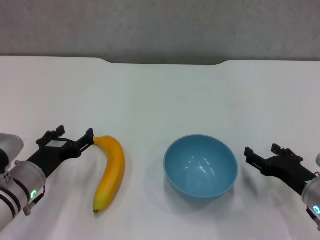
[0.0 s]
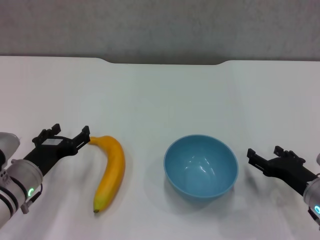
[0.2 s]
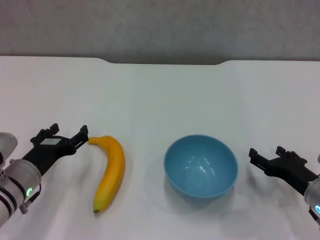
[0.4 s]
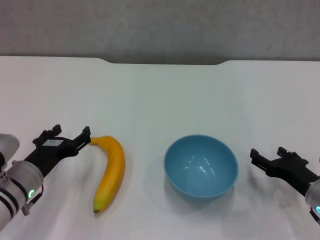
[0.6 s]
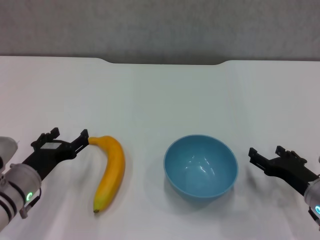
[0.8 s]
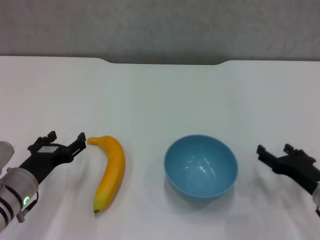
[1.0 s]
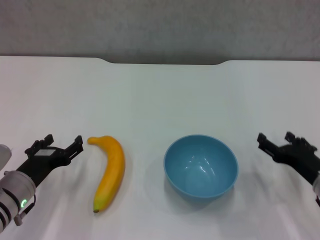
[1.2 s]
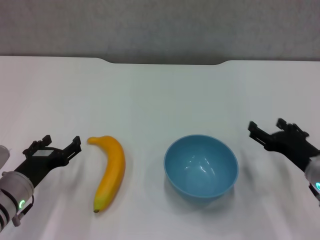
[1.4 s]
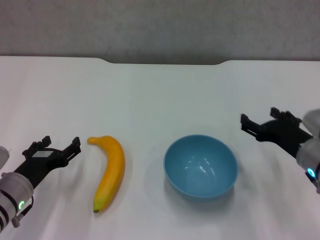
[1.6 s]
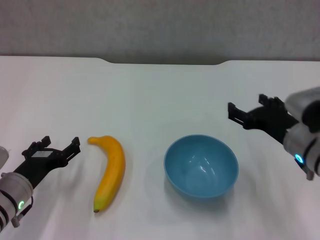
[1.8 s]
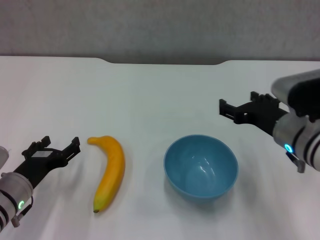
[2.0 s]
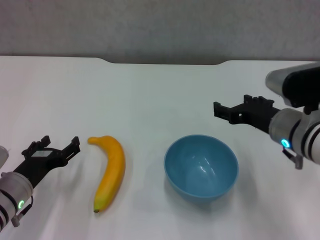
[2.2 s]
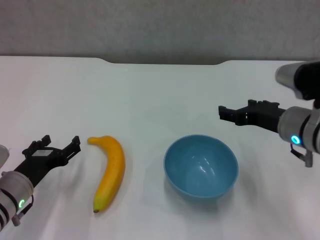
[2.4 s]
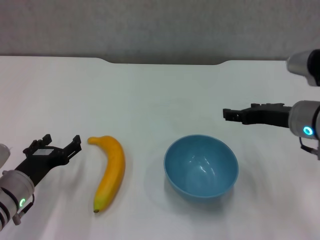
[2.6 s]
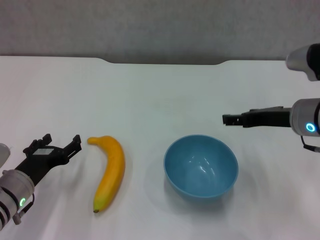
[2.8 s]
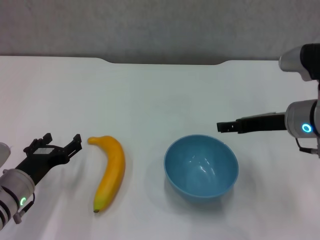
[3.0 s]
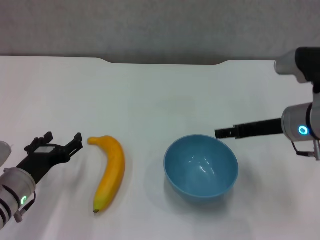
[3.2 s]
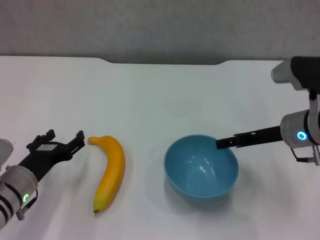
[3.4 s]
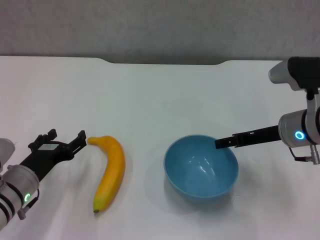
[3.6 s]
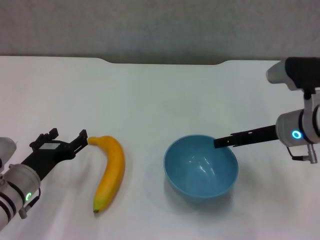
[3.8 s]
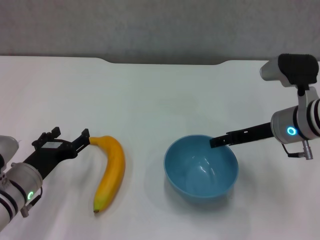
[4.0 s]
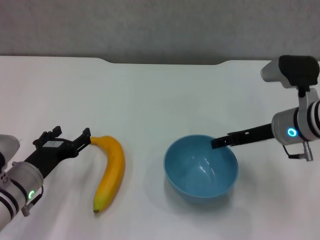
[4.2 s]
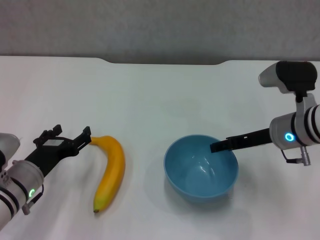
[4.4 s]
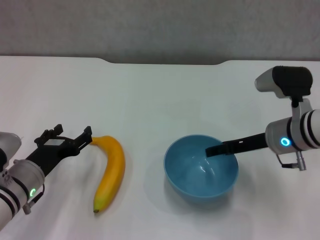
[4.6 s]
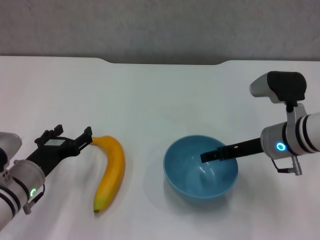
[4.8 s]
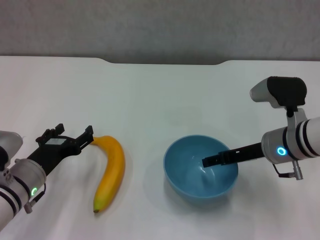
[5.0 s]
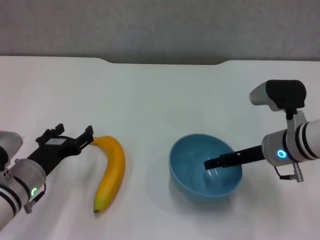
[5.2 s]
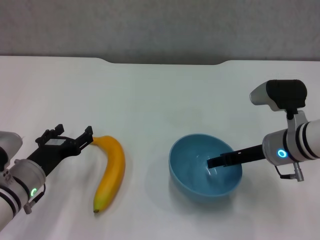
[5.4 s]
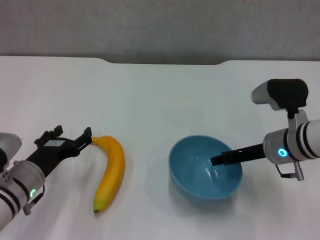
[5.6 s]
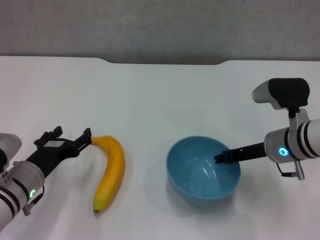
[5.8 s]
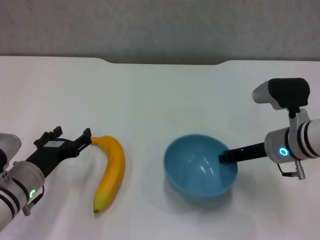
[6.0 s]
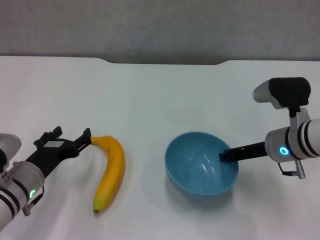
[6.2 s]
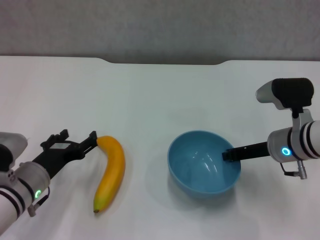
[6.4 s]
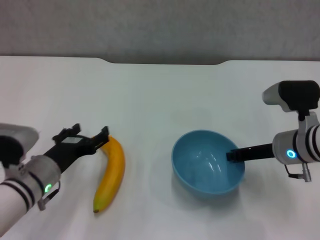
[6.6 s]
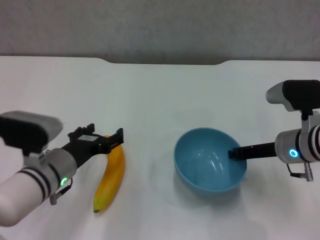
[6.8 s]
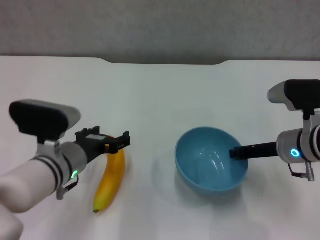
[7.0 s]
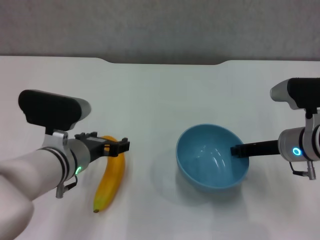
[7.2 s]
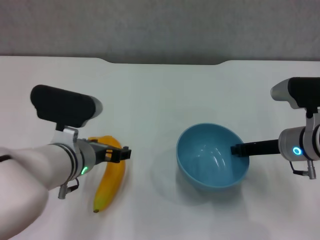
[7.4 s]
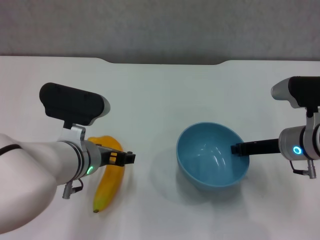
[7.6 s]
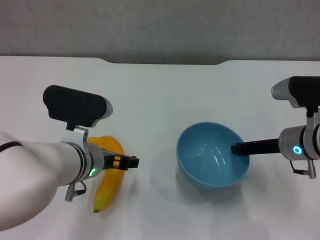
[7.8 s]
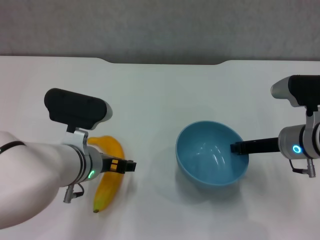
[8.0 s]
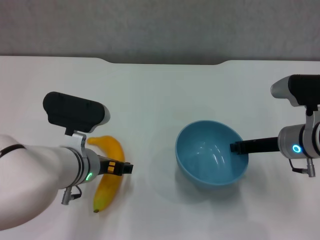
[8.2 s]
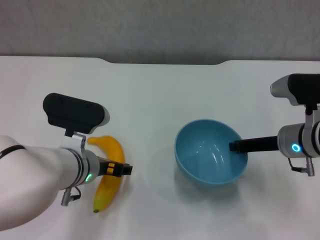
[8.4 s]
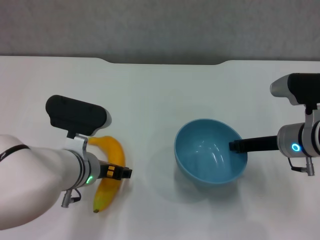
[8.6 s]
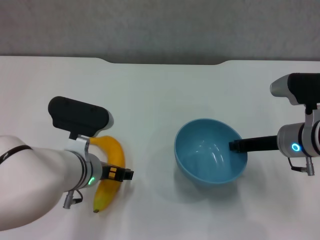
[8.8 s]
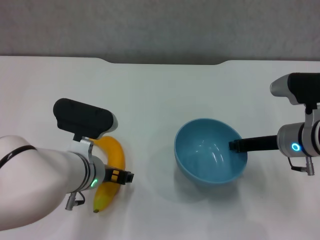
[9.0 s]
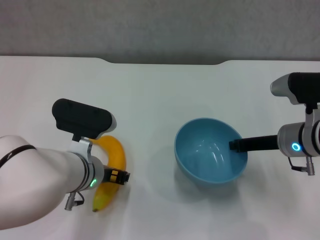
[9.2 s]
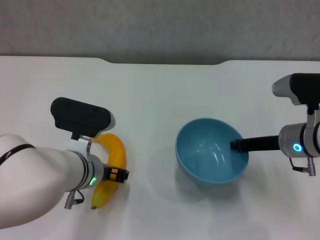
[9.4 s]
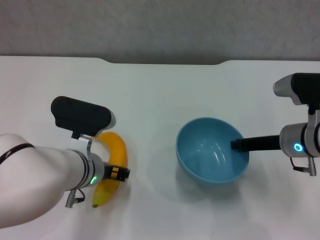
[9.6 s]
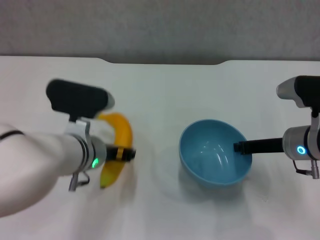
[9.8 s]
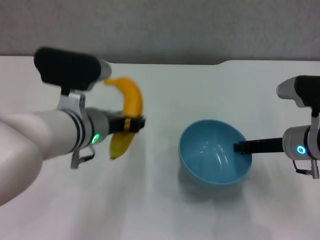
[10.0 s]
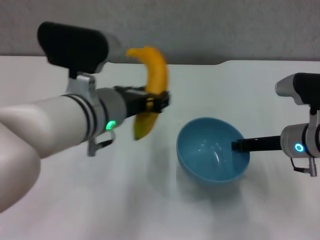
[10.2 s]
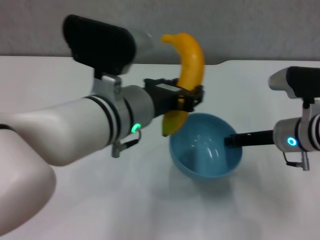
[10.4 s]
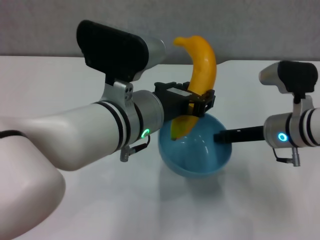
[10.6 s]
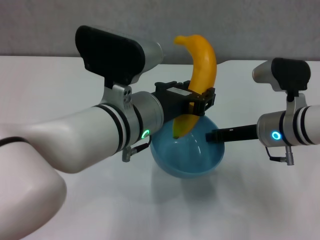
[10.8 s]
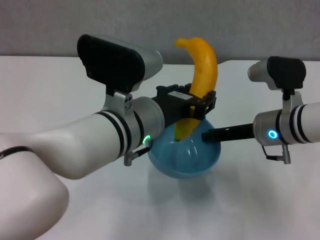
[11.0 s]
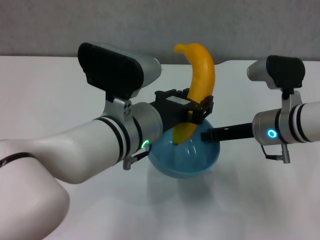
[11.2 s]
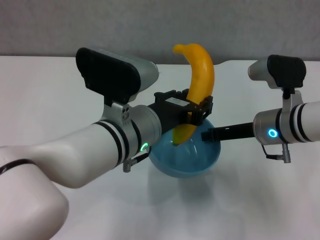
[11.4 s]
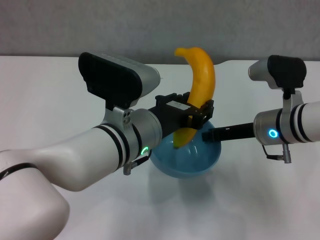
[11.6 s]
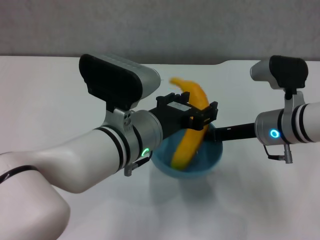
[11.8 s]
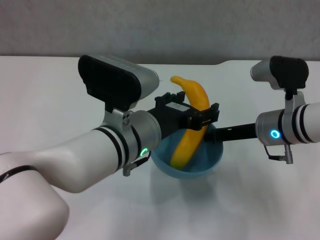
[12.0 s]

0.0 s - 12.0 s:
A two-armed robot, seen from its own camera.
Step, 0.0 s - 6.0 s: Grasp the blue bowl with right gripper.
Step, 6.2 s - 7.0 s: Lift the blue bowl with right gripper.
Step, 7.2 s - 9.2 s: Grasp the banana with left gripper.
Step, 9.4 s - 12.0 s: Place the banana in the blue bowl with left gripper.
0.0 s - 1.6 s: The right gripper goes approximately 5 cm upward.
1.6 s - 3.0 s: The right gripper heads upward and forward, covering roughly 10 cm.
3.0 s - 4.4 s: There are only small adjustments of the grippers.
4.4 s - 6.0 s: The right gripper closes up.
6.0 s - 7.6 s: The left gripper goes roughly 15 cm to the right and upward.
7.6 s - 9.0 s: The grippers move only a little.
9.0 s - 10.4 s: The left gripper travels upward and to the right by some 15 cm, and closes its fingers.
10.4 s - 12.0 s: The left gripper shifts by about 5 cm, and opens.

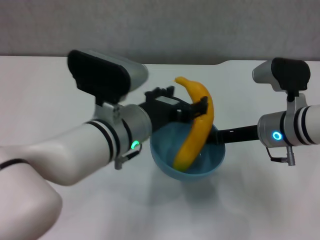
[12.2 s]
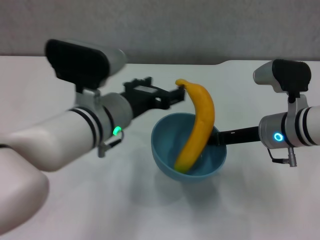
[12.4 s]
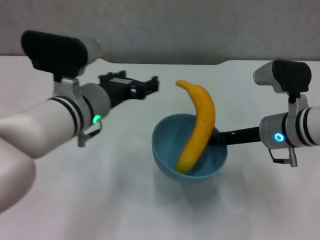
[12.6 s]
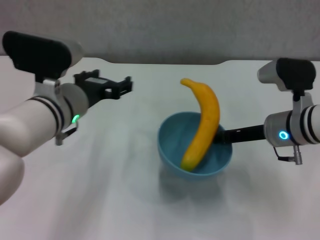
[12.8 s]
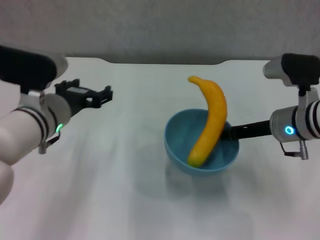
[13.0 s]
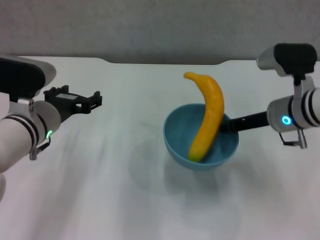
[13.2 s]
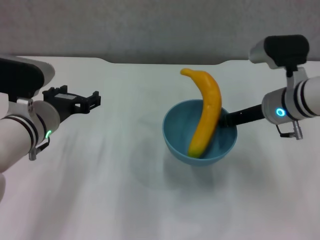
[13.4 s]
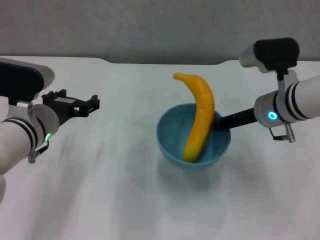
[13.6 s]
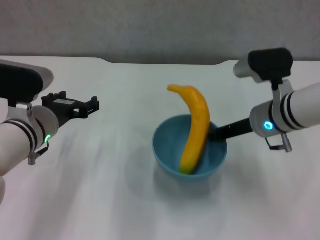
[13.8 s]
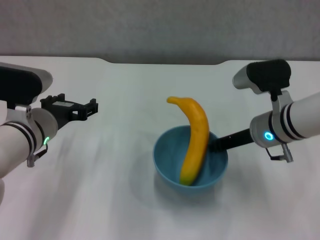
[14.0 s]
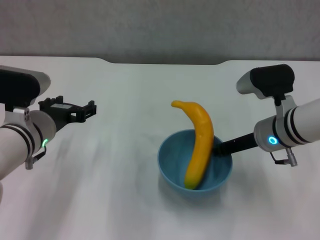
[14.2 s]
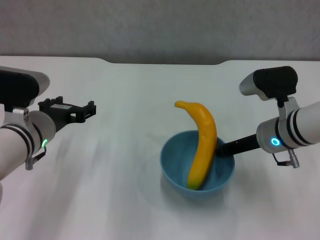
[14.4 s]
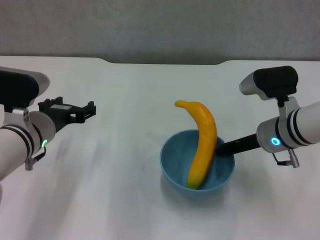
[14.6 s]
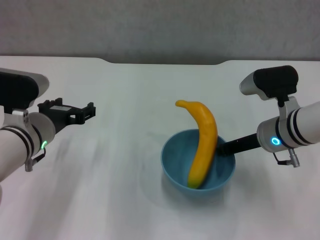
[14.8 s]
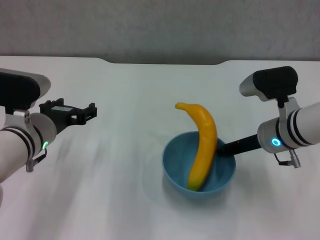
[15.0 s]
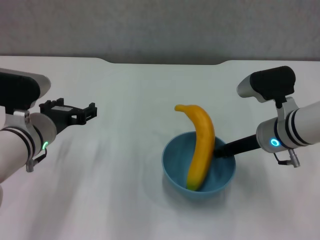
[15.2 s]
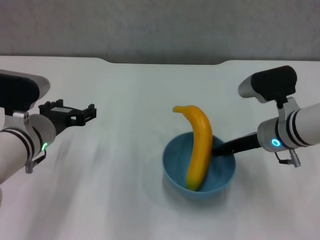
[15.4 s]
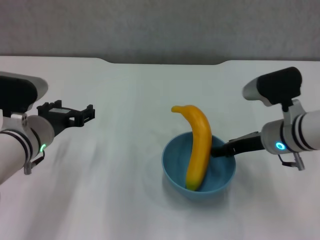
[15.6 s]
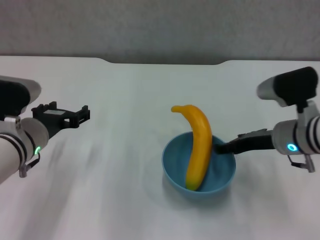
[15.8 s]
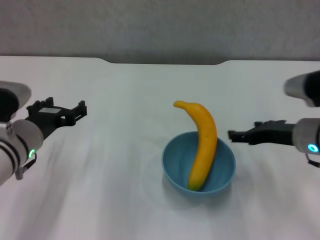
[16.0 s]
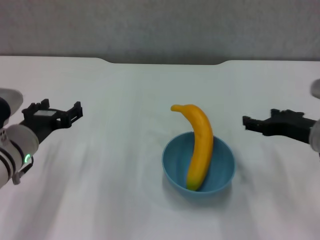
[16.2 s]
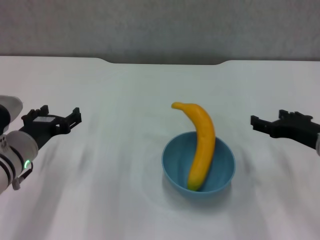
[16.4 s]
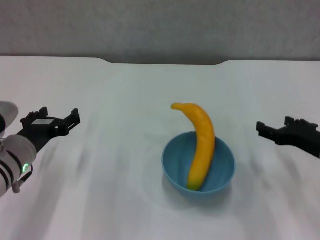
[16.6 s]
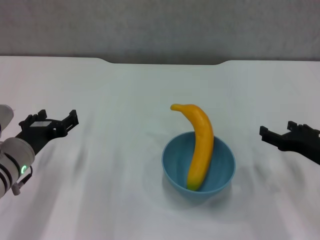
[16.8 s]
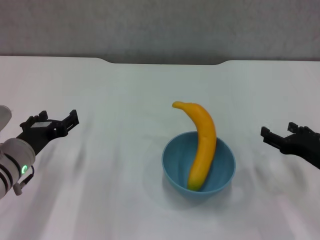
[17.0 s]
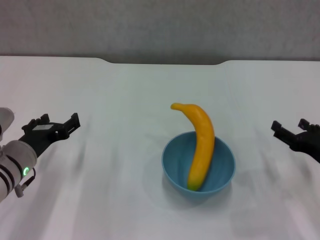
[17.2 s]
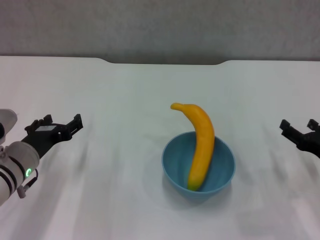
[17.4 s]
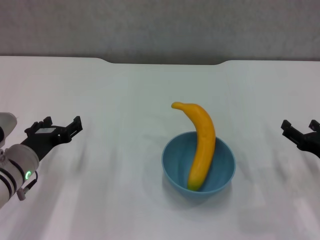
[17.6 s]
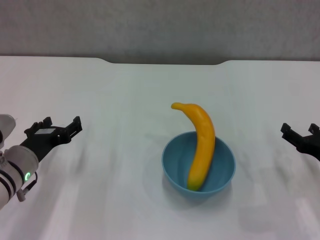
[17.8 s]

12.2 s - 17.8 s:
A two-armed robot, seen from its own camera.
Step, 12.2 s - 15.8 s: Place the bowl on the table with right gripper.
12.2 s - 13.6 s: The left gripper moves to the left, about 15 cm.
15.0 s - 16.4 s: The right gripper heads to the right and backward, covering approximately 10 cm, and opens.
16.4 s - 17.8 s: The right gripper goes roughly 5 cm downward.

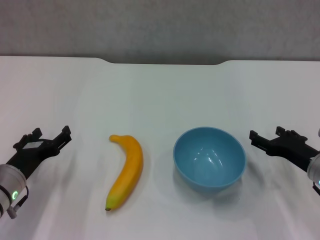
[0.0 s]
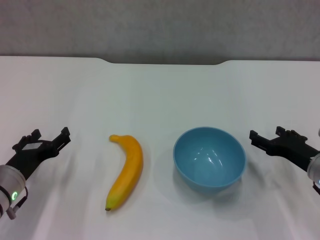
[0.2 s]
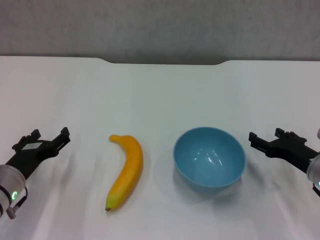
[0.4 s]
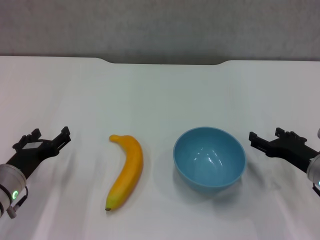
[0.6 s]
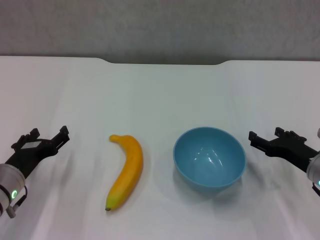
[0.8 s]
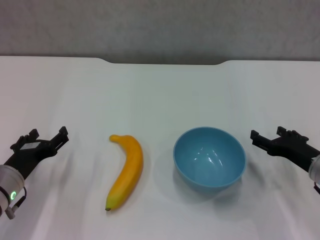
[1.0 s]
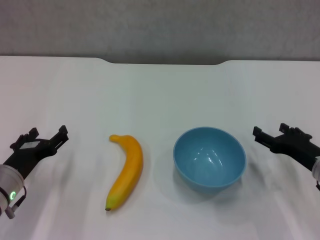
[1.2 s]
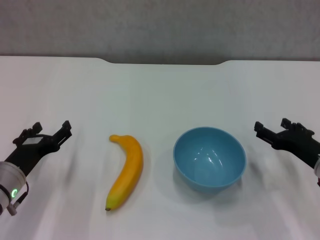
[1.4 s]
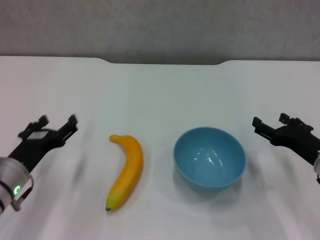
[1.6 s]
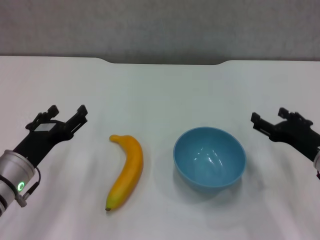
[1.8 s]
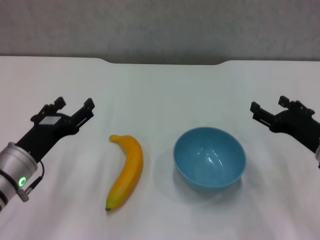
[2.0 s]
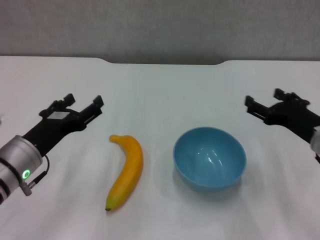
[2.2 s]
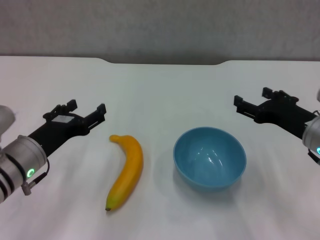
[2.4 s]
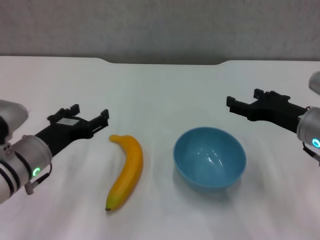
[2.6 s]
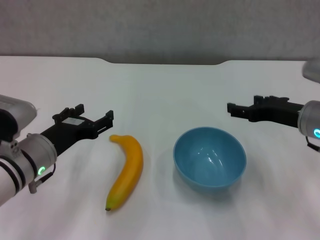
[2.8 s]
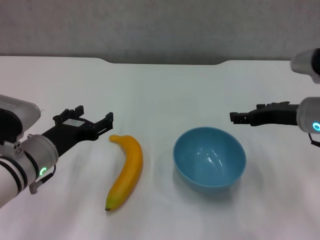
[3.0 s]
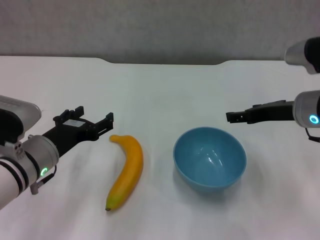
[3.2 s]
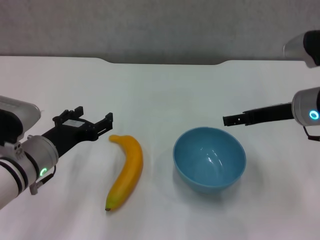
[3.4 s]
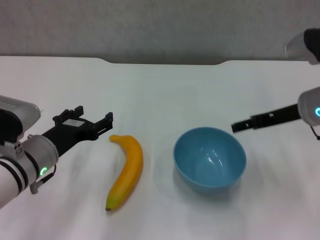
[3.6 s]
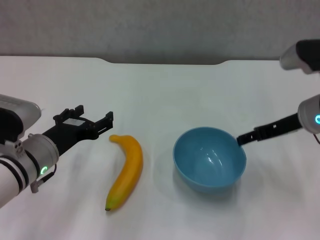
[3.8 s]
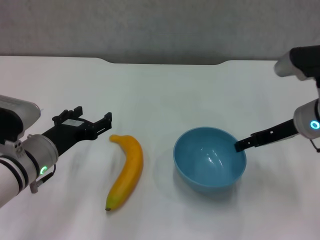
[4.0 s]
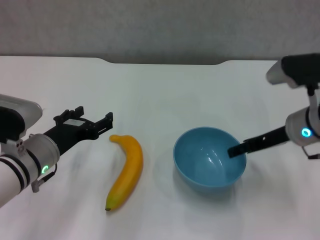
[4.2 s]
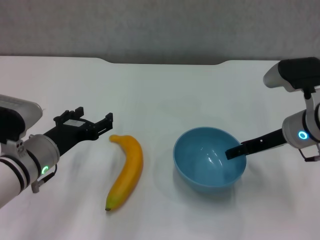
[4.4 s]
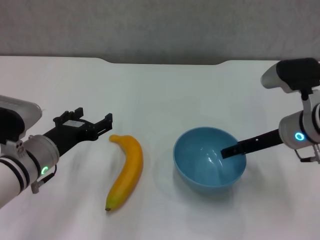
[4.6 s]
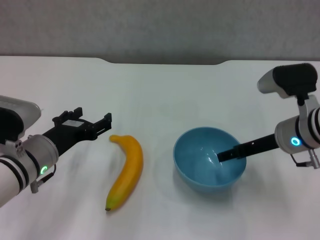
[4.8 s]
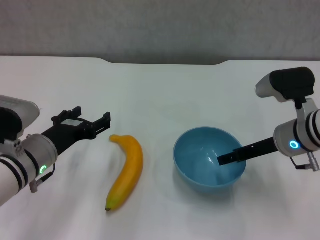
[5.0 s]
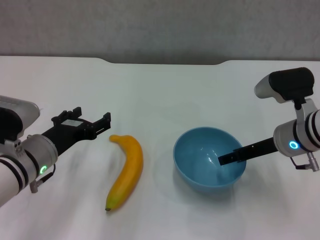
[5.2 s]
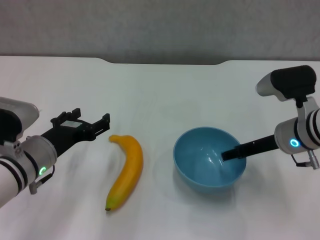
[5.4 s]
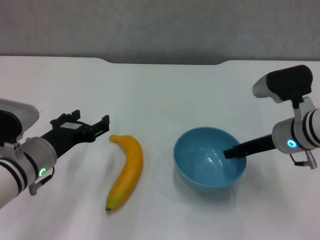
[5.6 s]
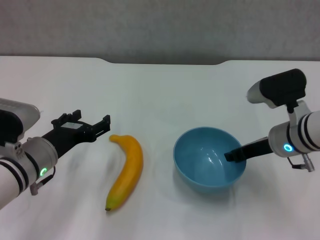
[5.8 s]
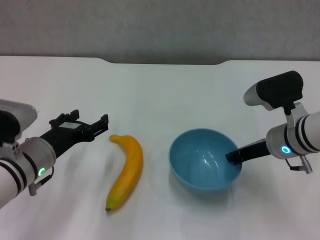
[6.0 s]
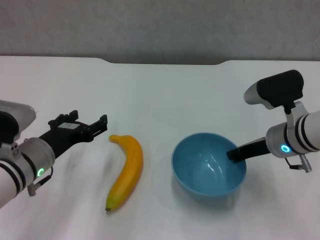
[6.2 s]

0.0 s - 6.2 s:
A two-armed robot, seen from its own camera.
Step, 0.0 s - 6.0 s: Grasp the blue bowl with right gripper.
0.0 s - 1.6 s: The grippers move only a little.
1.6 s - 3.2 s: The right gripper heads upward, forward and to the left, covering some 15 cm, while the left gripper changes place by approximately 5 cm.
3.2 s - 4.6 s: The grippers move only a little.
4.6 s - 6.2 s: The right gripper closes up.
